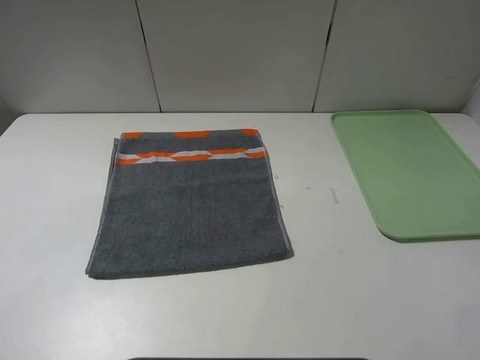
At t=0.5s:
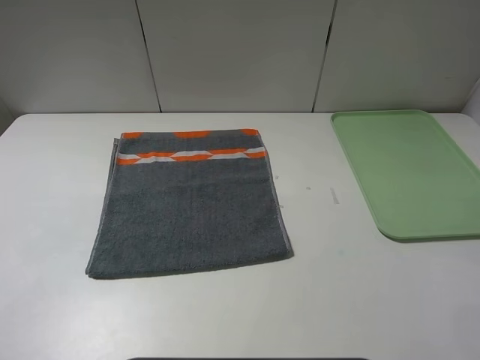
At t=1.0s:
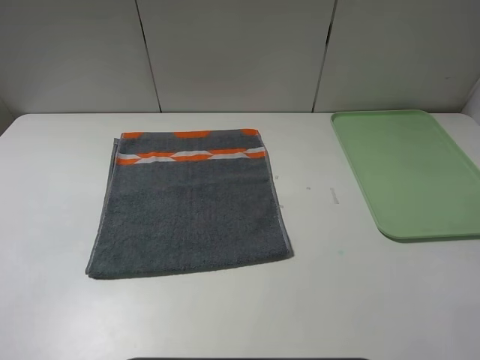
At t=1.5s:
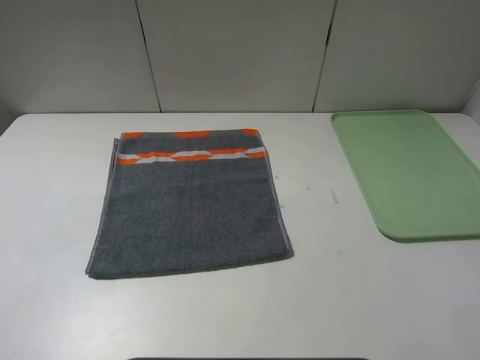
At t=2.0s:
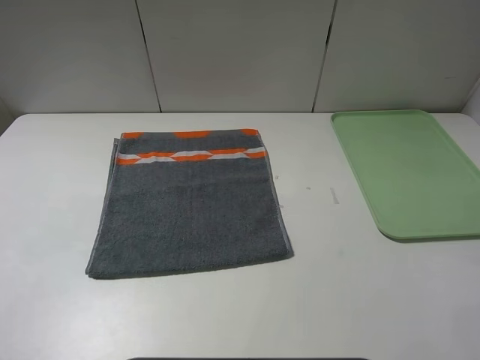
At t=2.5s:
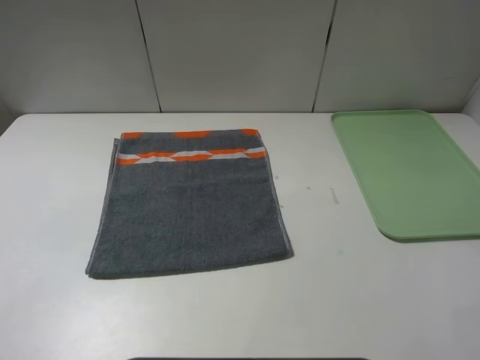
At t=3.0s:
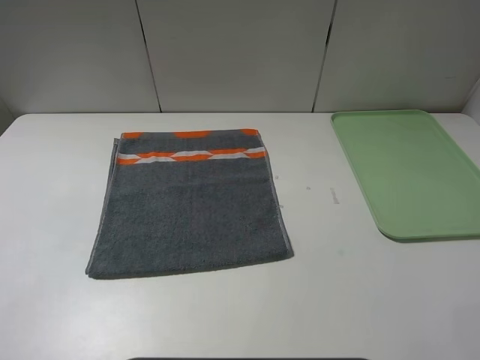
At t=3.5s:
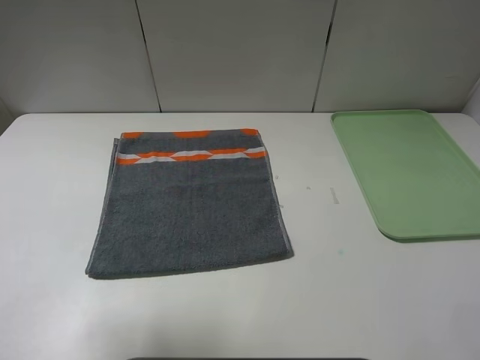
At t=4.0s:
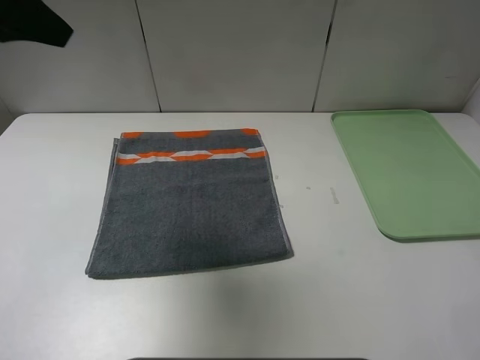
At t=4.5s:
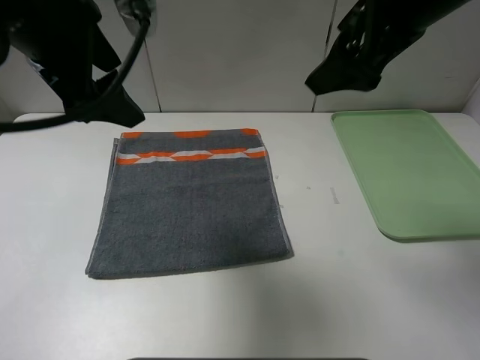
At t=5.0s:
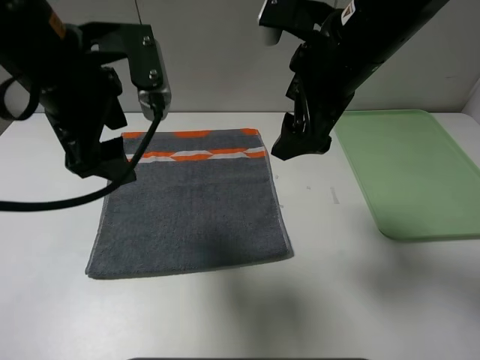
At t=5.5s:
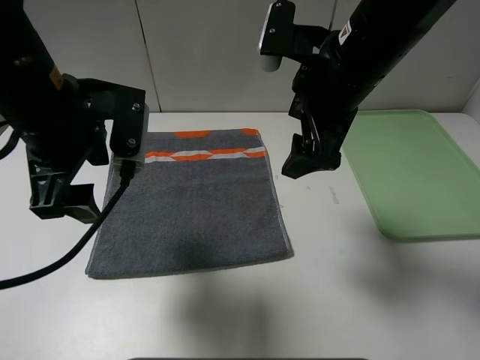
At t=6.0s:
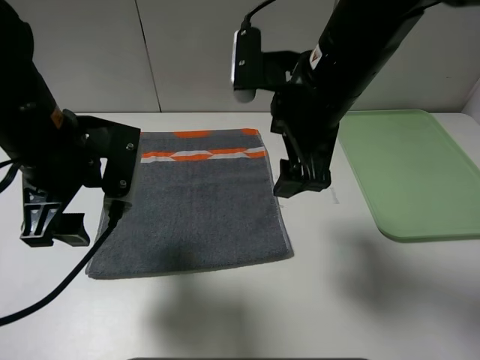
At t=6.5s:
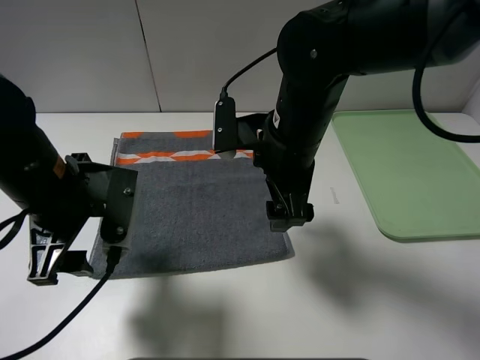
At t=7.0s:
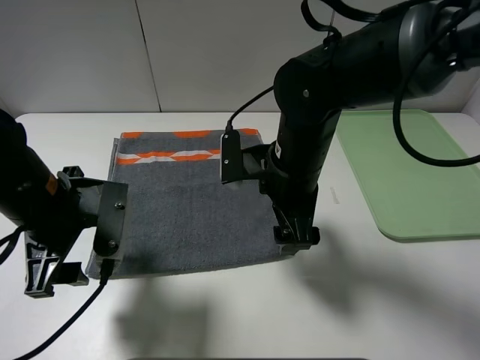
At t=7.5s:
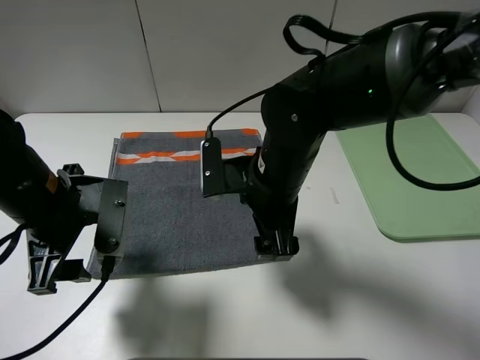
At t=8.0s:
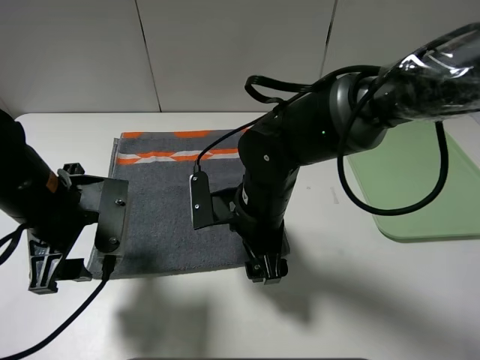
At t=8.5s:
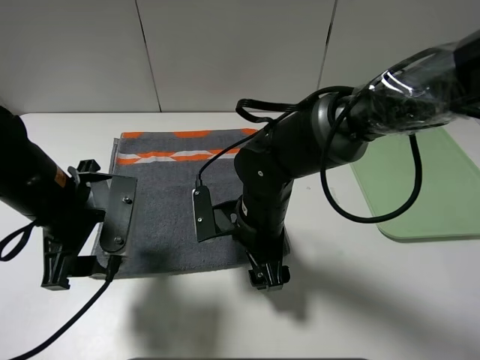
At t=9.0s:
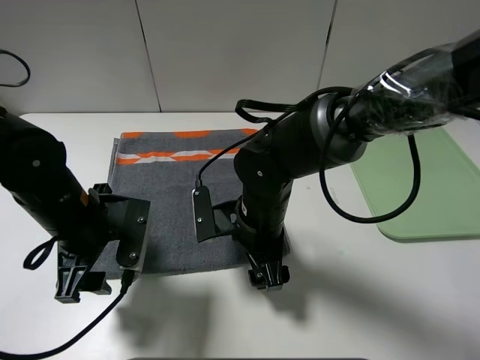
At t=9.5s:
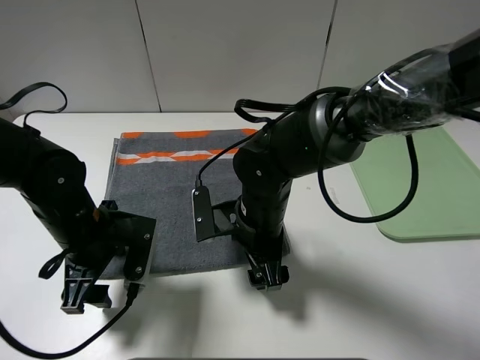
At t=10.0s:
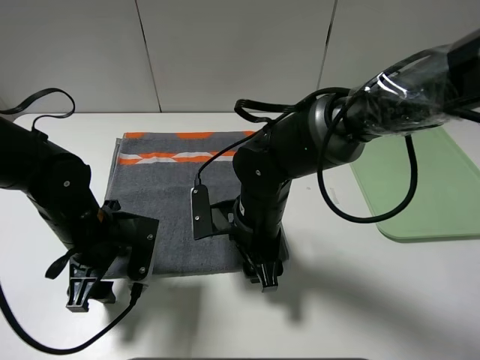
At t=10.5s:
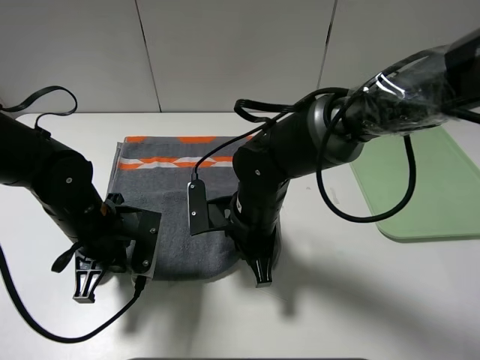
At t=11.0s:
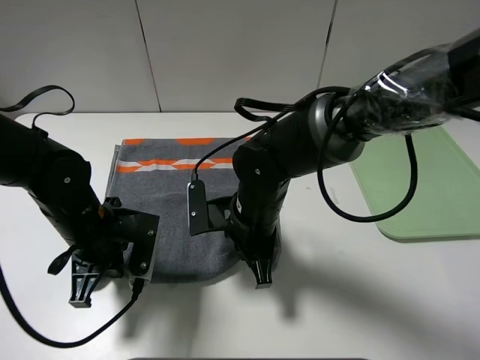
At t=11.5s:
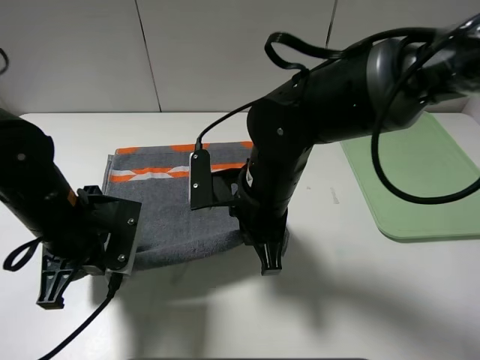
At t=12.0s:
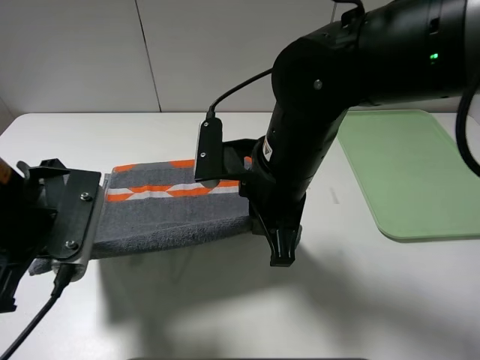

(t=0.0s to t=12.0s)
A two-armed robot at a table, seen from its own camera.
t=0.0s - t=2.0s: Both grippers stay about where they are.
t=2.0s - t=4.0s: Both grippers travel together forward and upward, approximately 25 cm.
t=4.0s - t=6.0s: The right gripper heads to the left and downward, covering approximately 25 cm. Meanwhile the left gripper shifts about 15 cm downward.
t=6.0s - t=8.0s: The right gripper travels downward by roughly 15 cm, while the left gripper heads downward, covering some 5 cm.
t=8.0s - t=10.0s: The left gripper heads downward, covering approximately 10 cm.
t=10.0s - t=12.0s: Both grippers move upward, approximately 10 cm. The left gripper closes. Meanwhile the right gripper closes up.

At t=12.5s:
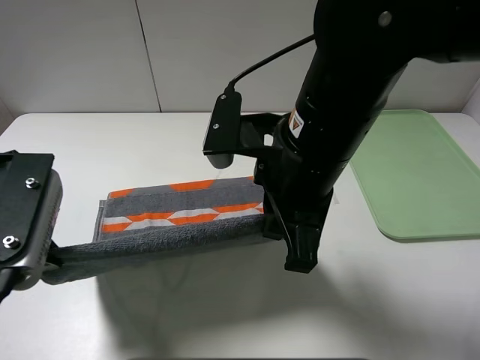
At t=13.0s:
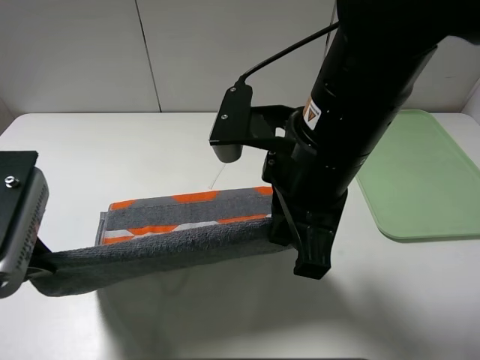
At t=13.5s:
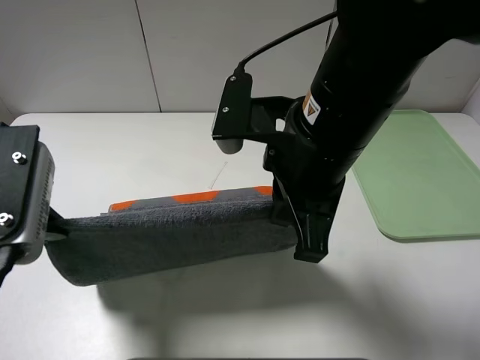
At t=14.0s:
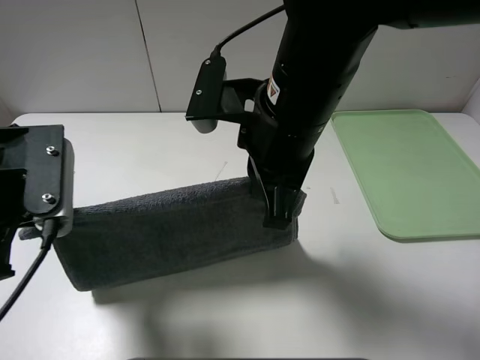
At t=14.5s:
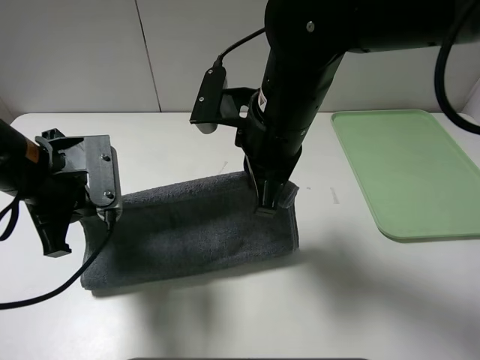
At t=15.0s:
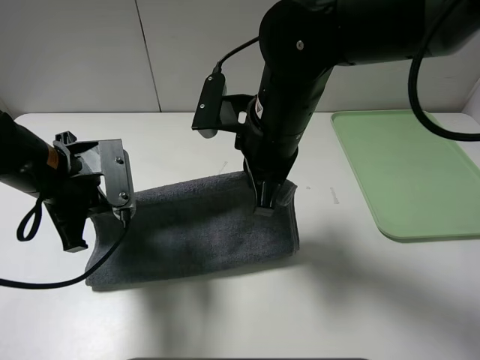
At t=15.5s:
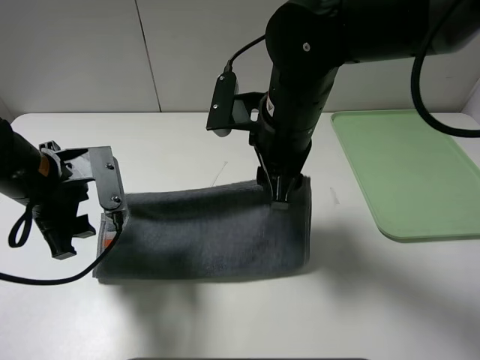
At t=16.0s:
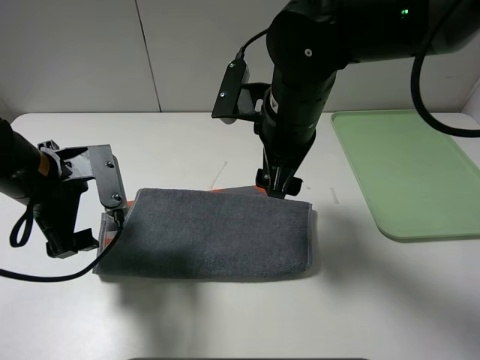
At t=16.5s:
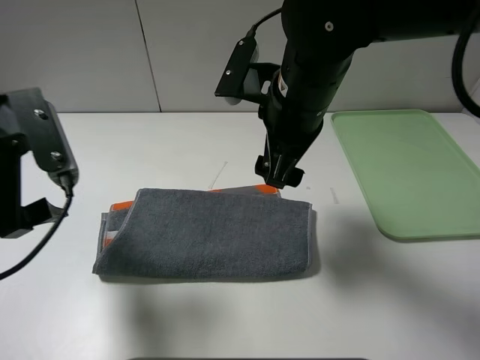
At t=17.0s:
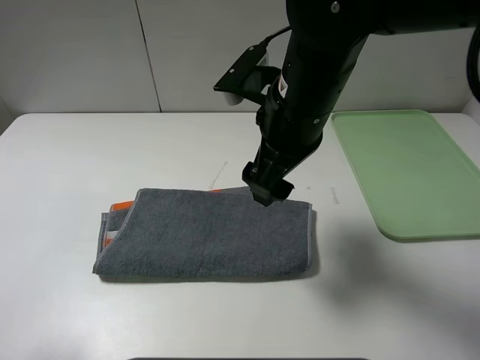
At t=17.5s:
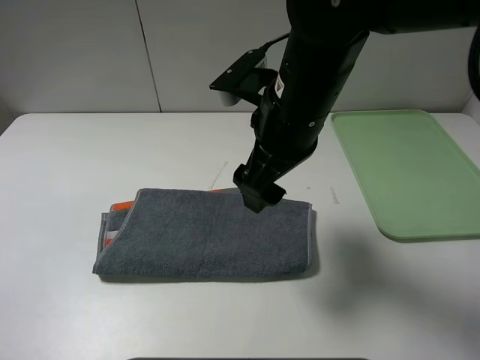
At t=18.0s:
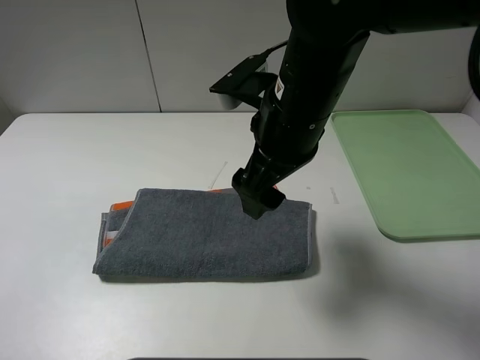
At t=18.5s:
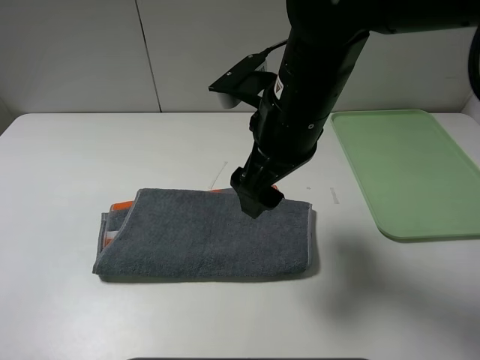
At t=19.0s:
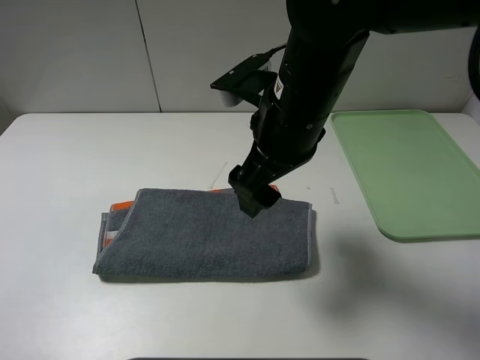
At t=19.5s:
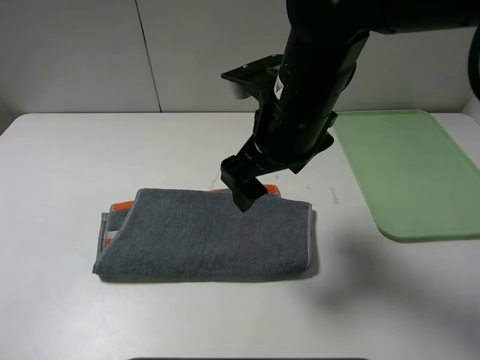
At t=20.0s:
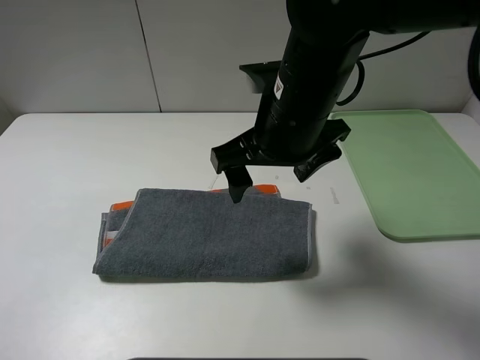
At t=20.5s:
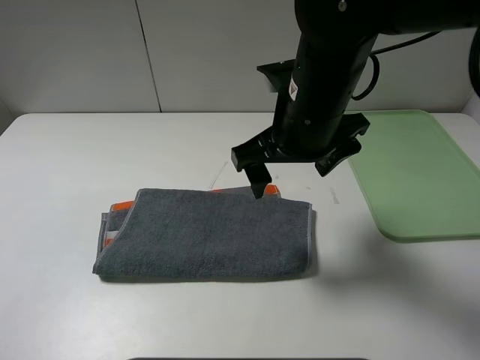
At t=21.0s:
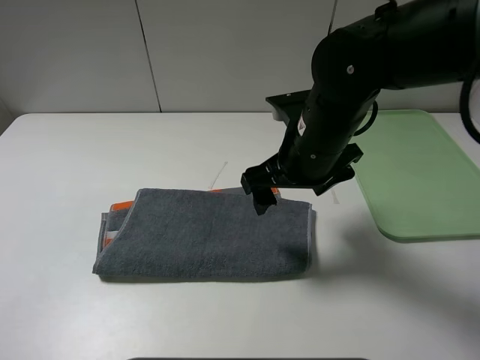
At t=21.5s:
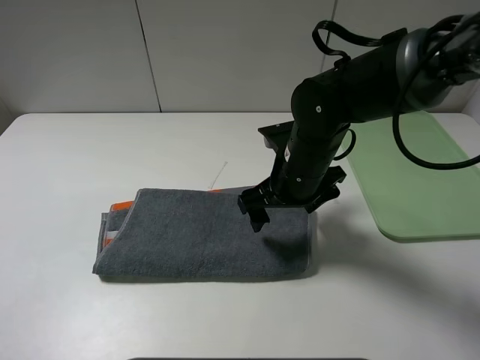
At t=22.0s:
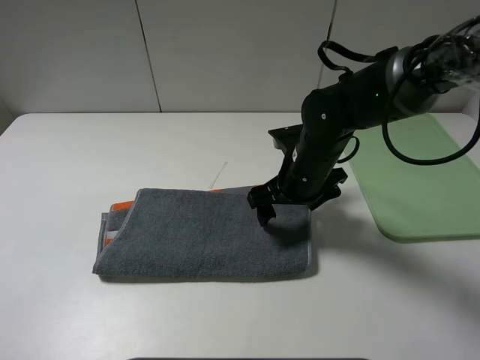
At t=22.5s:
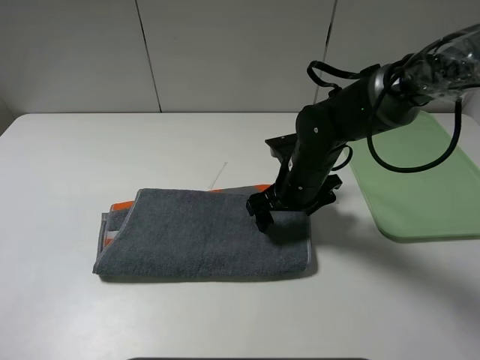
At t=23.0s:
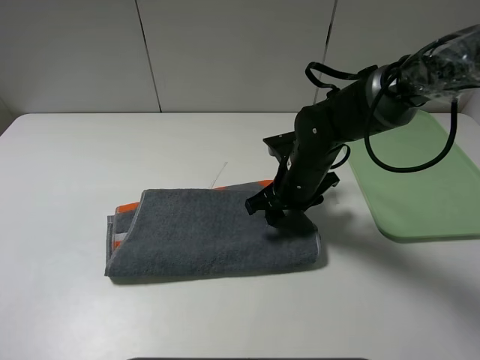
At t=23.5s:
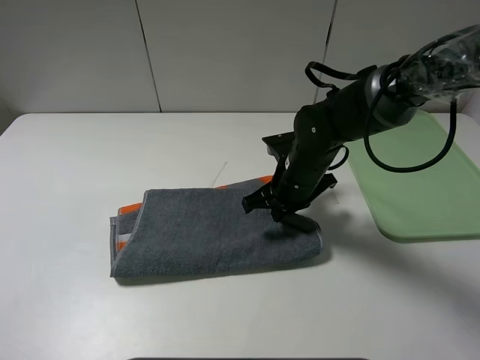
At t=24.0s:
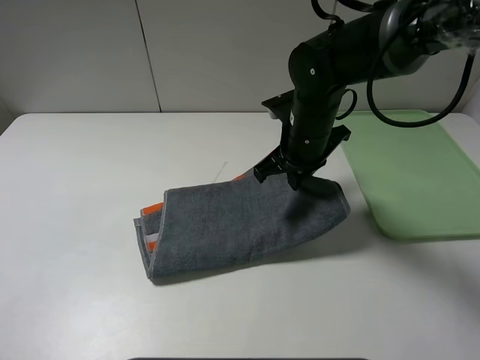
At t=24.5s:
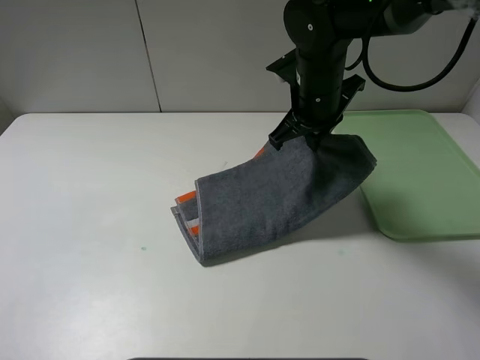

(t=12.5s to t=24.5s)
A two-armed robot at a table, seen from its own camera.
Step, t=12.5s - t=15.5s: Fold the grey towel upwards.
t=12.5s - t=14.5s: The left gripper moves forward and downward, some 10 cm; the right gripper heads forward, covering approximately 5 cm.
t=14.5s - t=16.5s: The left gripper goes roughly 5 cm upward, and opens up; the right gripper opens up.
t=16.5s - t=18.5s: The left gripper shifts roughly 20 cm backward and to the left.
t=20.5s - t=22.5s: The right gripper is displaced downward by some 15 cm.
t=22.5s - t=24.5s: The right gripper travels upward and forward by approximately 15 cm, and closes.

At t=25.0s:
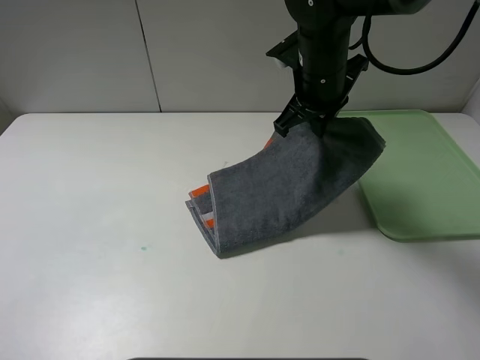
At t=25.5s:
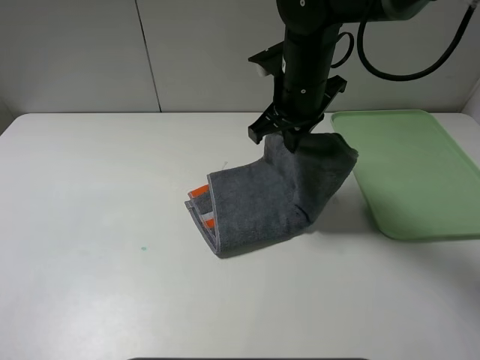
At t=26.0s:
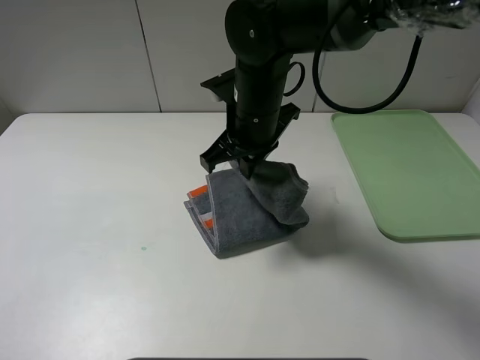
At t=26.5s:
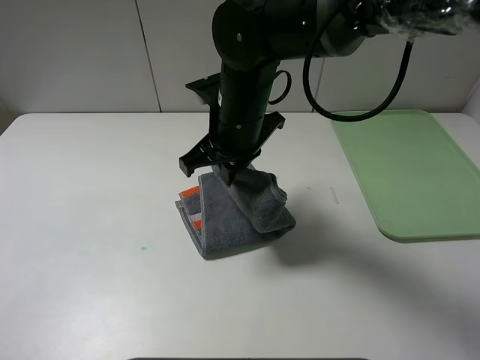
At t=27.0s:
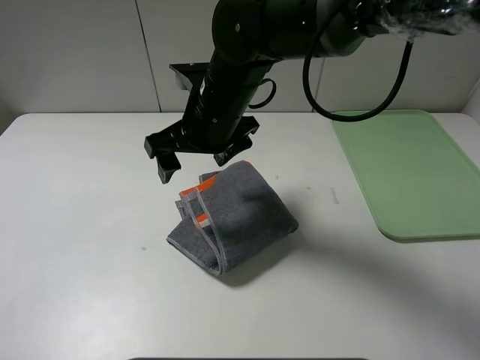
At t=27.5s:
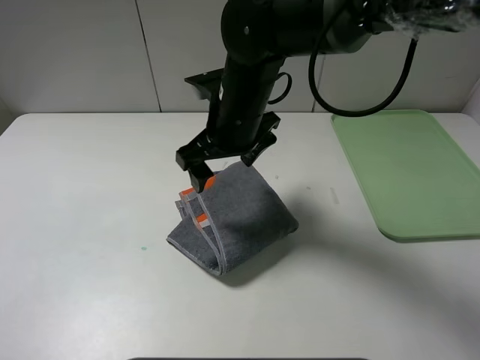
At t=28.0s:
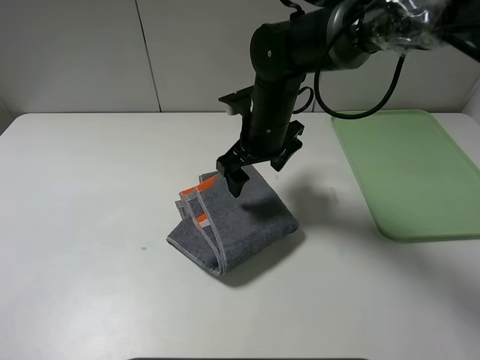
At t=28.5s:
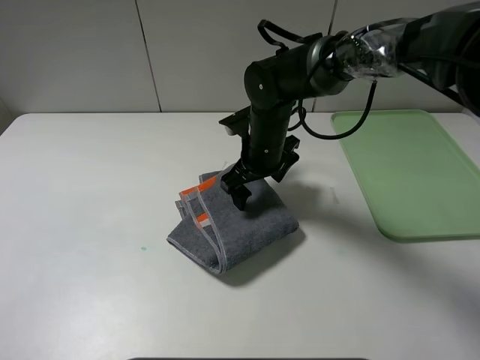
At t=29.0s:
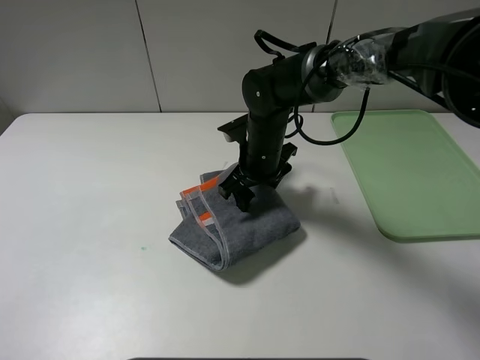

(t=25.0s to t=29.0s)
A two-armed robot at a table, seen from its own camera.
t=25.0s - t=27.0s: The right gripper goes about 15 cm to the left and backward, and opens up.
t=27.0s - t=29.0s: The right gripper travels downward, to the right and forward by approximately 15 cm, and closes its fingers.
